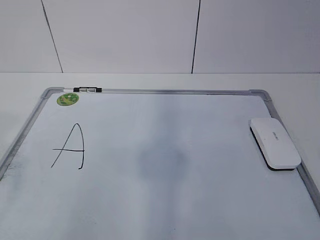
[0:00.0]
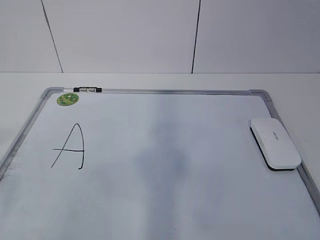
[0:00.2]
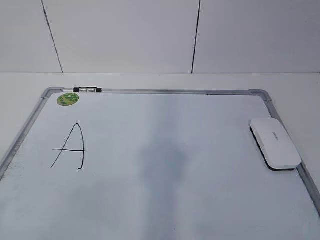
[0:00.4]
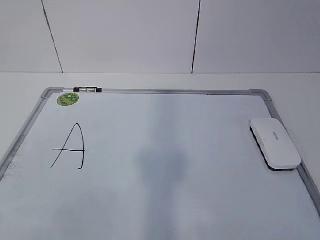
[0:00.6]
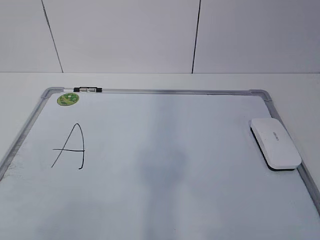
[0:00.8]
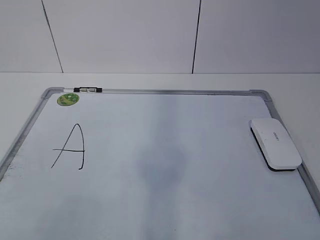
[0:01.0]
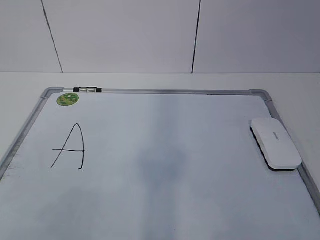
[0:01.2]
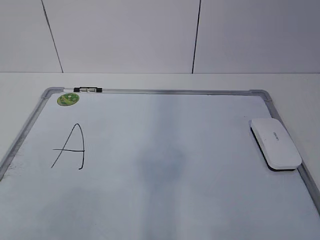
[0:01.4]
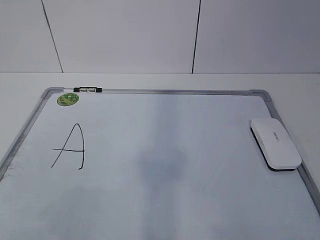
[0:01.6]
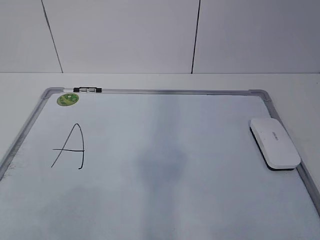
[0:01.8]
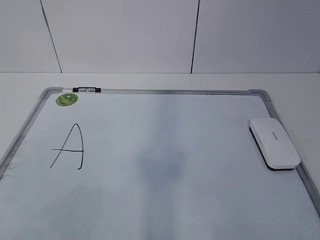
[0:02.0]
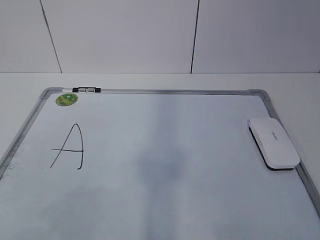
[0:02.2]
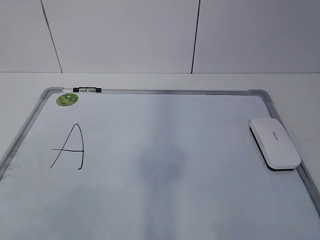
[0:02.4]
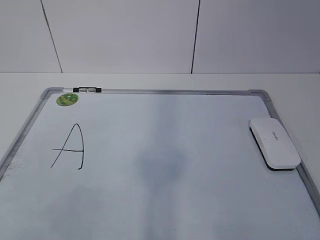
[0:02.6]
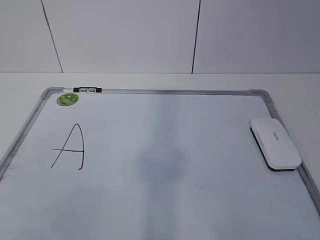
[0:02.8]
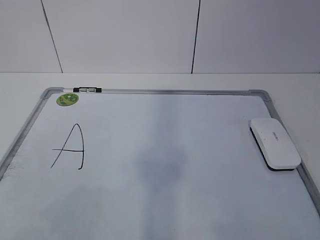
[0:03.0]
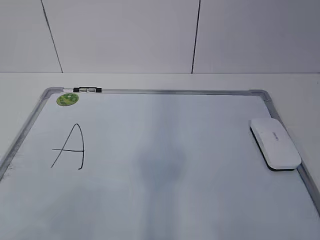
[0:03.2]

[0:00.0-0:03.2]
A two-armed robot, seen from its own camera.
Task of the whole recording: pick up the eraser on the blackboard and erase the letter "a".
0:01.6 to 0:03.2: Both grippers stay put.

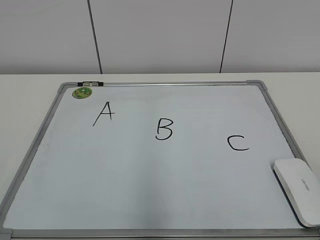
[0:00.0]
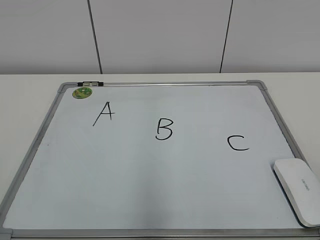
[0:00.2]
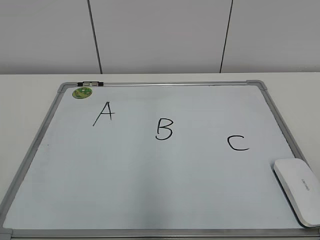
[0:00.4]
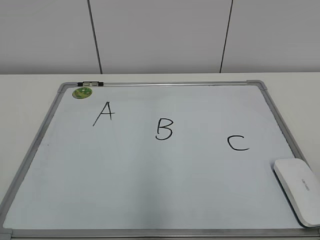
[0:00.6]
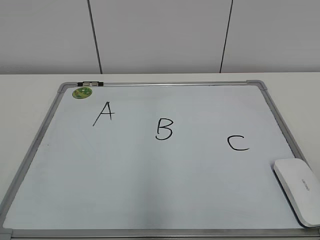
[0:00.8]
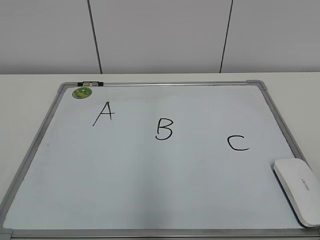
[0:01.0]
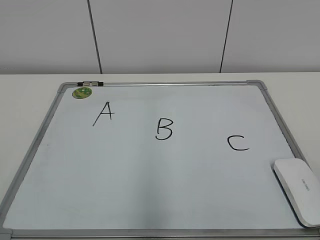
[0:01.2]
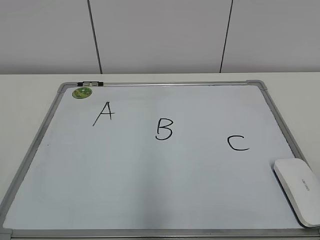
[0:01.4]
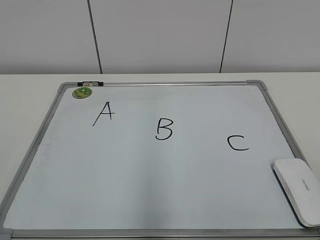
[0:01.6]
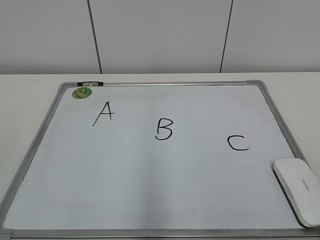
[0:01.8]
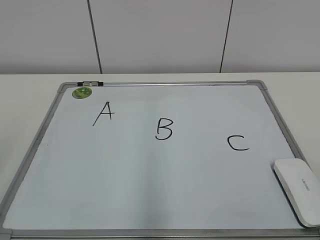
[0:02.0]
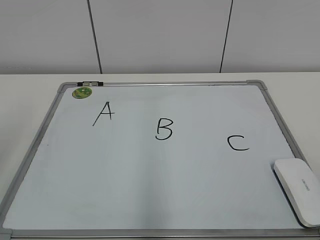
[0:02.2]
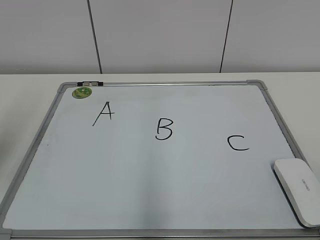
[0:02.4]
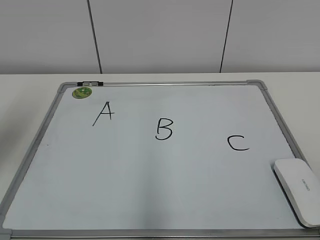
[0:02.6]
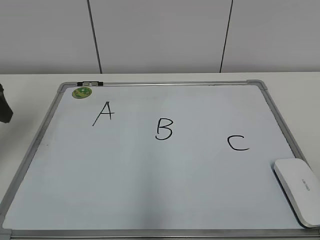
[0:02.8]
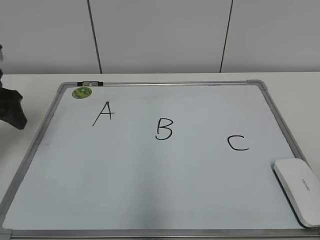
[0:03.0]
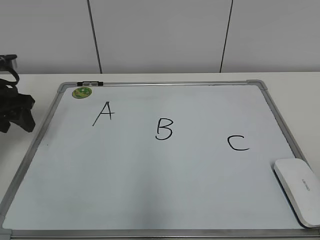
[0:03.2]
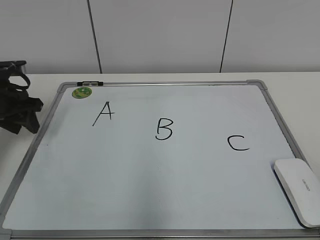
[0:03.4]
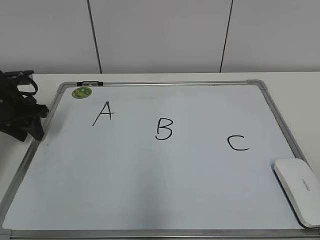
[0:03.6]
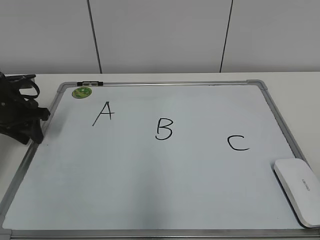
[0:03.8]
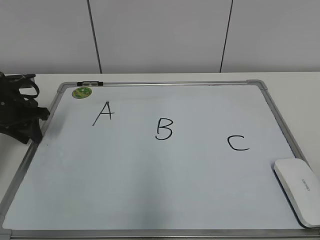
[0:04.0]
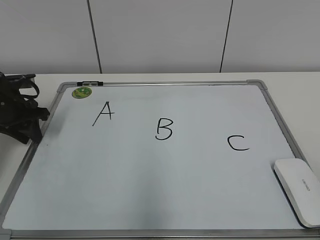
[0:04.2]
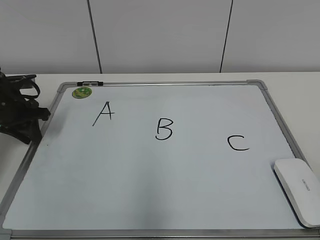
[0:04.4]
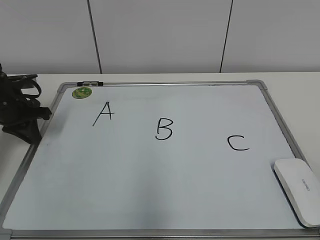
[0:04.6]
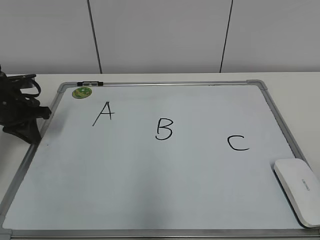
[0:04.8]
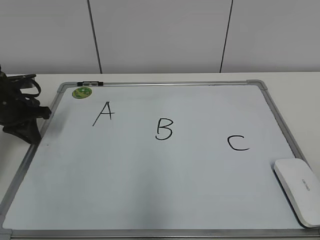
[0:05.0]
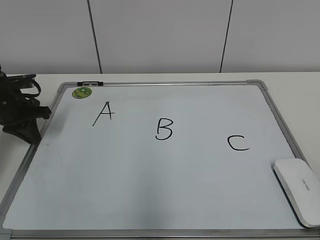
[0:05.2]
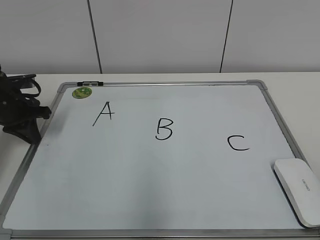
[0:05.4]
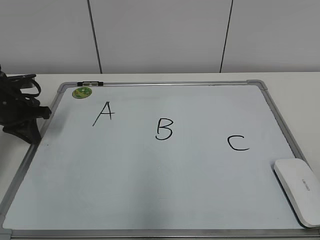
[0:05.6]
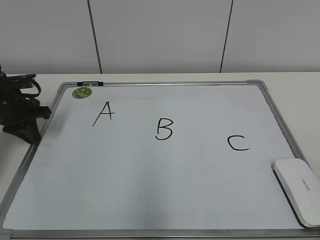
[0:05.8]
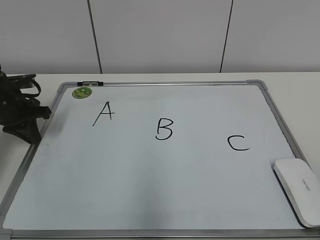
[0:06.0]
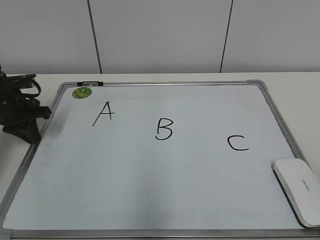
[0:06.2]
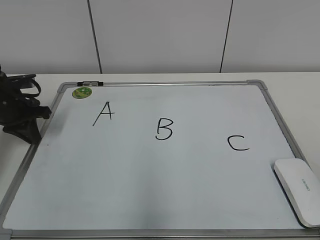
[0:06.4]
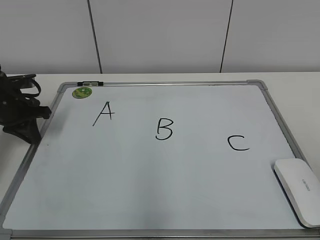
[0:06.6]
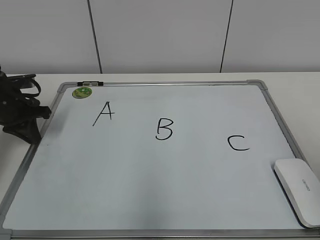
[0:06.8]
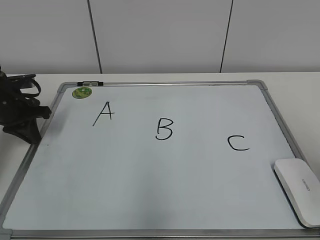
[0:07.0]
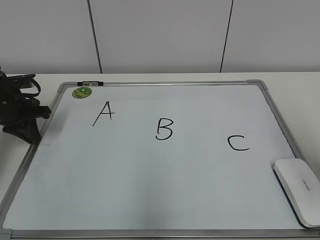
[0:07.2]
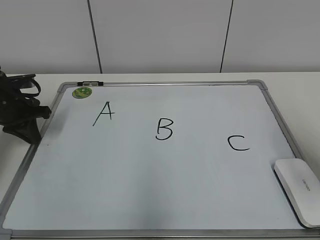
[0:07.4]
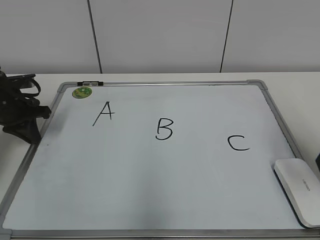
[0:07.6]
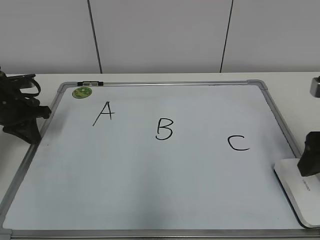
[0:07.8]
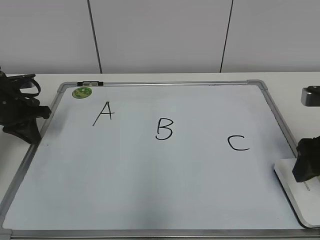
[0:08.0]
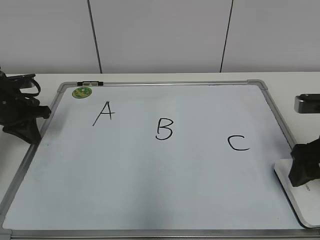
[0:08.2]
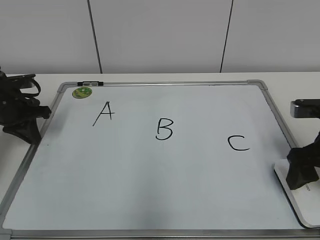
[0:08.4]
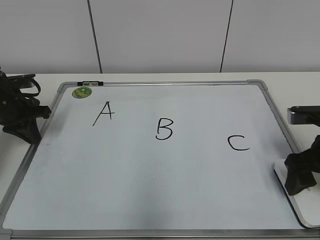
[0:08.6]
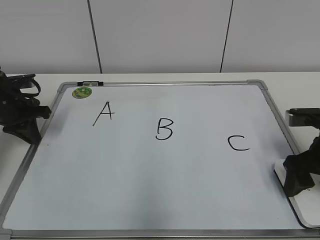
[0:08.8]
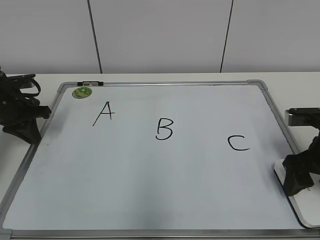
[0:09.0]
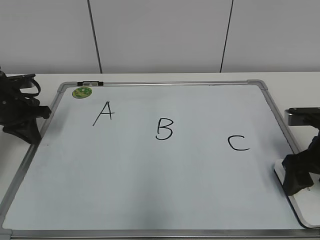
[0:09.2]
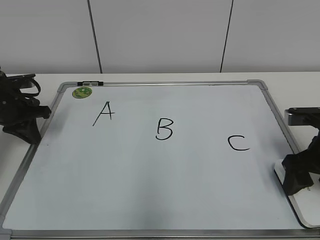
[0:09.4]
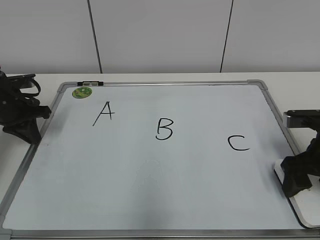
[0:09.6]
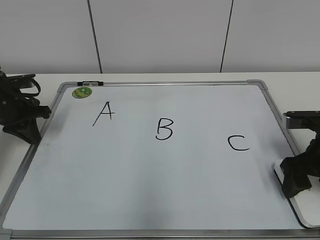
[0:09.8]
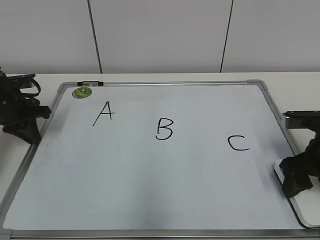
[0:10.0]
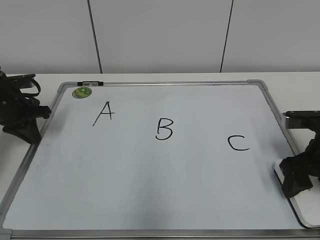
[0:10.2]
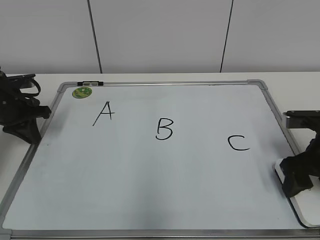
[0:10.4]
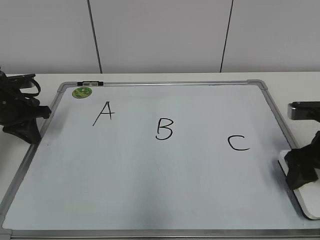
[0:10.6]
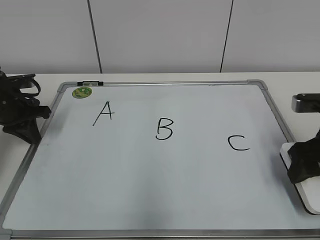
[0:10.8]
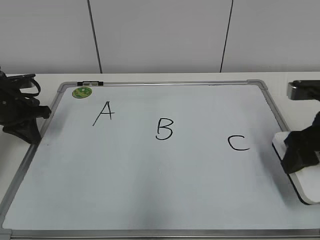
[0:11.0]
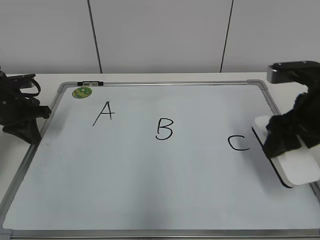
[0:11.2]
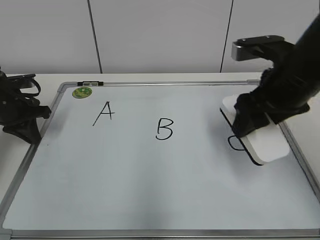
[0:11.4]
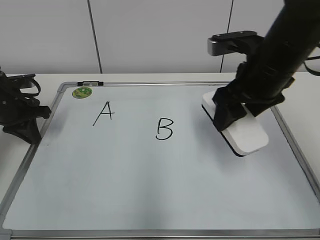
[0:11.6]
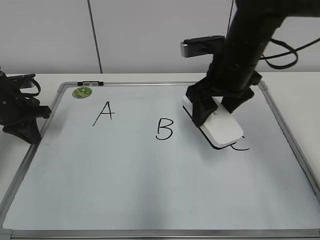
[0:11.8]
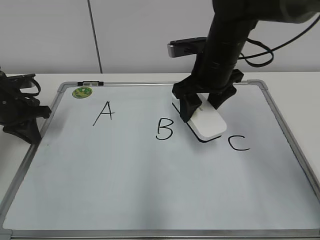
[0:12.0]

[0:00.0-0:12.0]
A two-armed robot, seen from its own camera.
Task of the whole recording: pick up the eraser on the blackboard and erase the letter "B".
Step, 0:00.0 to 0:05.2: Hold the drawing board steady with your left hand.
Step, 0:05.4 to 0:08.6: Grab the eraser with your right hand.
0:01.6 to 0:03.0: The left gripper heads forward, covering about 35 cm.
0:03.0 to 0:04.4: The left gripper goes roughly 10 cm downward and forward, and closes its fingers.
0:04.4 to 0:06.0: Both grippers stay about where they are.
0:06.0 to 0:07.6: The right gripper moves forward, approximately 25 cm, and opens its fingers.
0:07.6 to 0:09.0: The right gripper goes roughly 10 cm downward and forward.
0:09.0 to 0:10.4: The right gripper closes its fingers.
0:10.4 to 0:12.0: The right gripper is displaced to the left, forward and upward by some 20 cm.

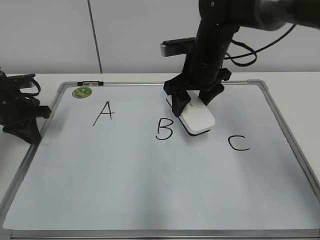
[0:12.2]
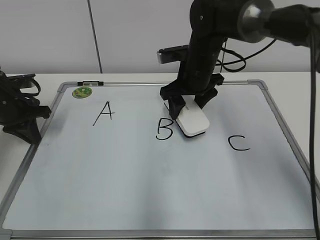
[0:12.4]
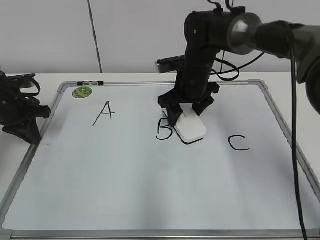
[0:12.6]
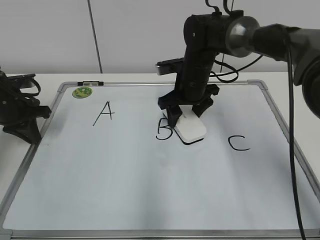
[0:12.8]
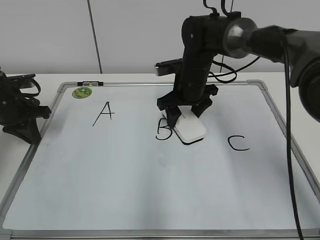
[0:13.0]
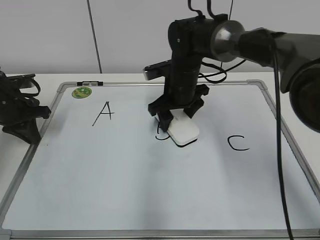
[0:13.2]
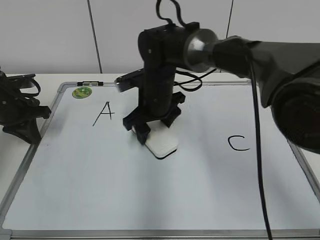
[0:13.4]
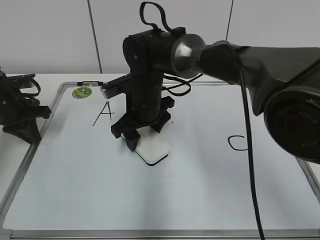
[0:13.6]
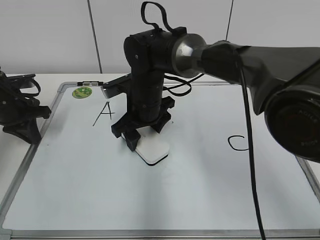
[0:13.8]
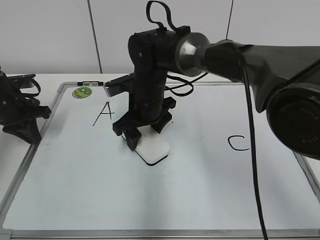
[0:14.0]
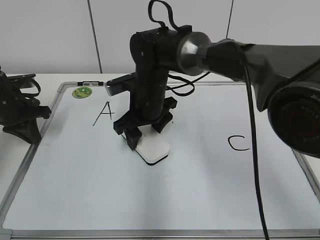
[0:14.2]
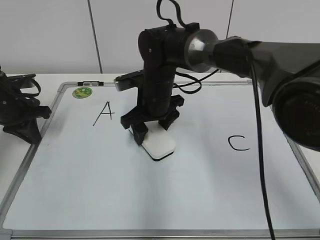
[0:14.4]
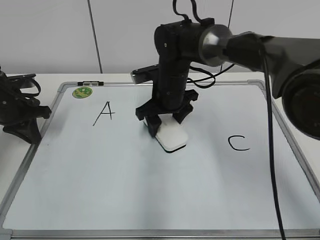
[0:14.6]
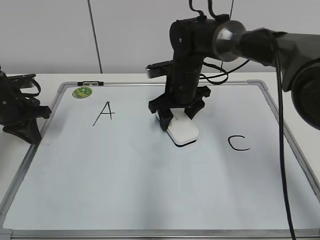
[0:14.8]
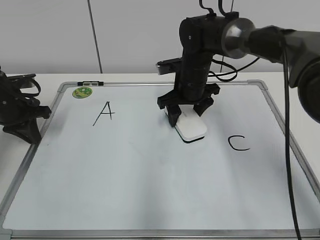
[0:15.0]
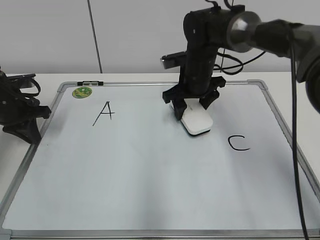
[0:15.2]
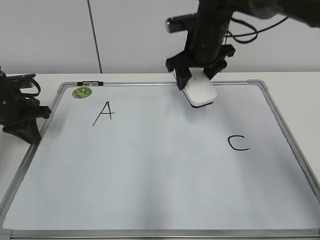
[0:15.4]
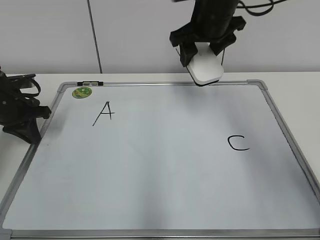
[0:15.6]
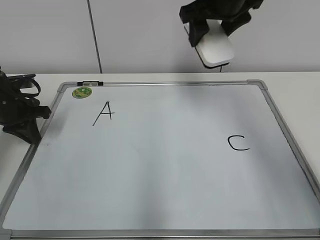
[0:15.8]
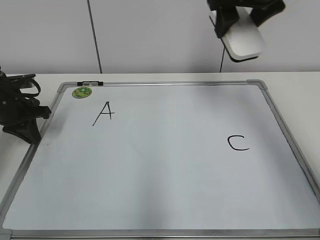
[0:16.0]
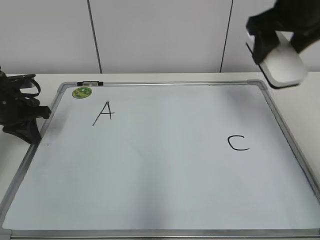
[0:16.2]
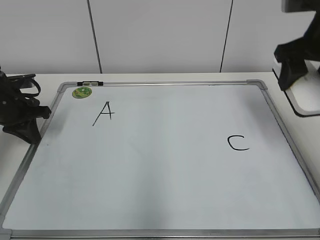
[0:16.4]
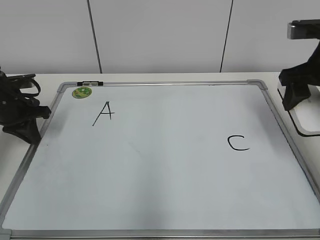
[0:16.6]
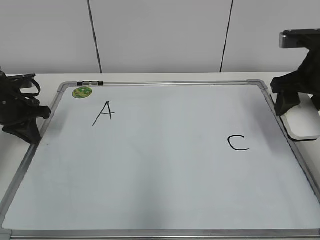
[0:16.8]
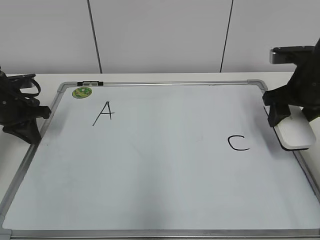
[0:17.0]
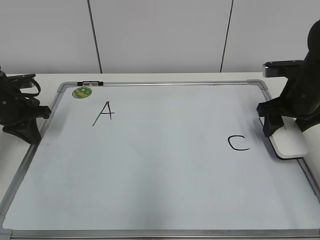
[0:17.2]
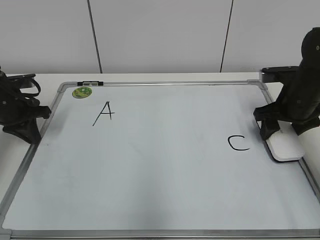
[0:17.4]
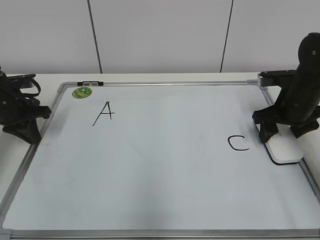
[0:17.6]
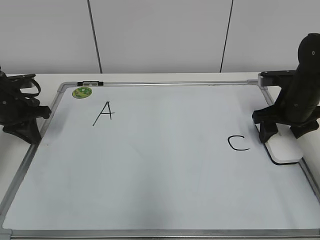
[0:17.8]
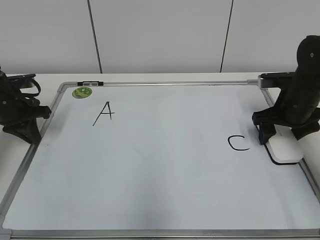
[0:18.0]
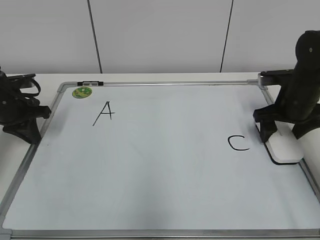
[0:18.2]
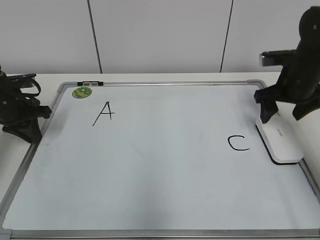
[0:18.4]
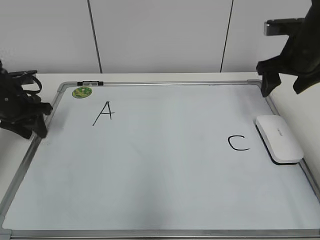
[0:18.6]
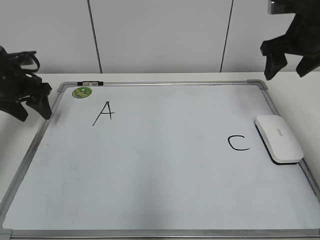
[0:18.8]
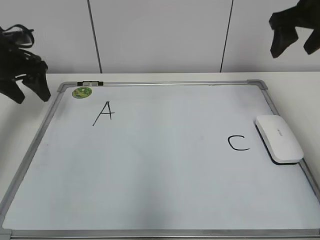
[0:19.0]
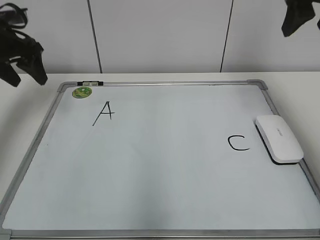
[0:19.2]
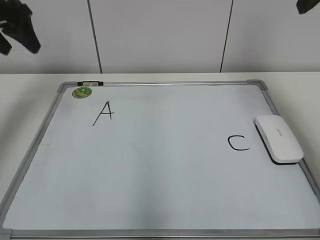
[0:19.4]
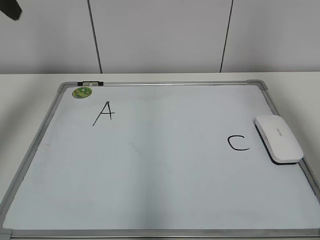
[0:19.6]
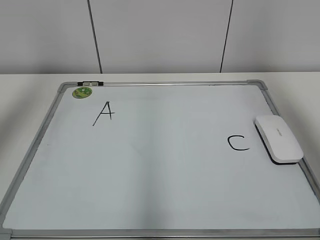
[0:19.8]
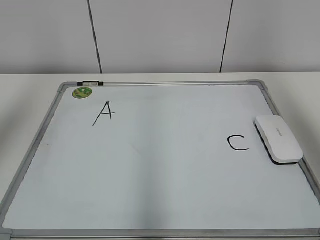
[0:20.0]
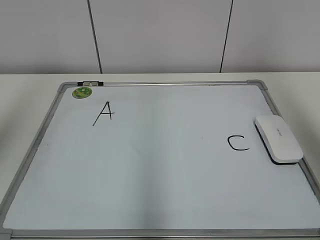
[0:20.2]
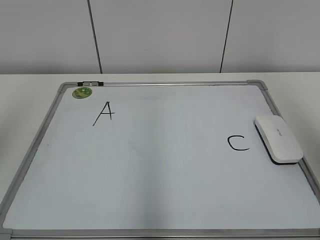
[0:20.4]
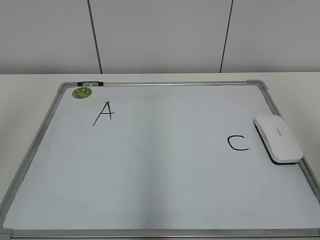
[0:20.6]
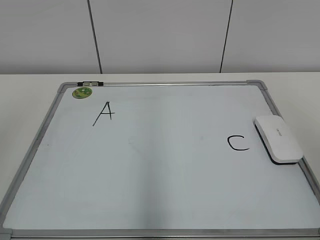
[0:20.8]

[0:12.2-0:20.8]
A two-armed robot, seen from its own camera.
Task of the whole recording: pick up the eraser on the blackboard and erase the letter "B".
Step, 0:12.2 to 0:15.0: Erase the letter B with your right hand.
Step, 0:15.2 to 0:17.8: Put down the eraser with your right hand.
0:12.2 to 0:13.6: The right gripper is displaced to the left and downward by about 15 cm.
0:13.6 to 0:15.0: The right gripper goes some 10 cm to the right and forward.
0:15.0 to 0:16.6: The right gripper travels to the right, backward and upward by roughly 25 cm.
0:16.6 to 0:18.0: The right gripper moves downward, some 10 cm, and opens its fingers.
0:18.0 to 0:19.4: The grippers both shift upward by about 20 cm. The left gripper opens. Meanwhile the right gripper opens, then closes once more.
0:19.4 to 0:20.8: Both grippers move backward, some 30 cm.
